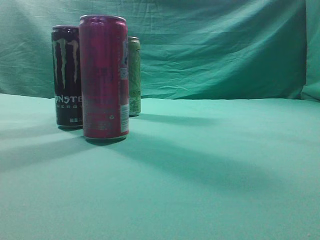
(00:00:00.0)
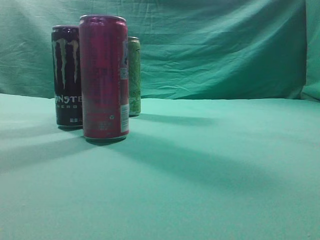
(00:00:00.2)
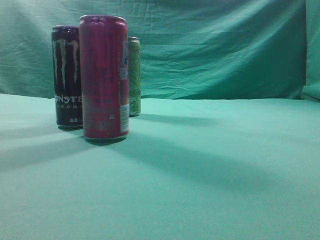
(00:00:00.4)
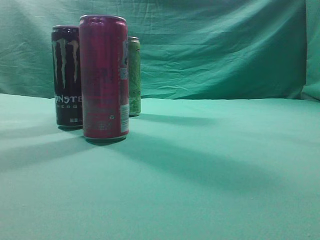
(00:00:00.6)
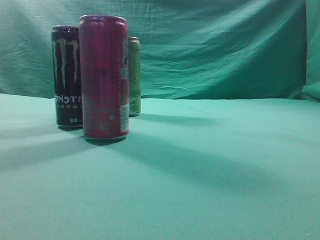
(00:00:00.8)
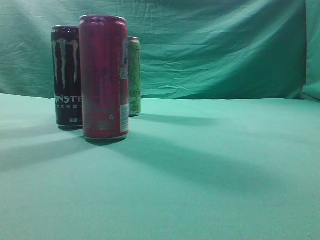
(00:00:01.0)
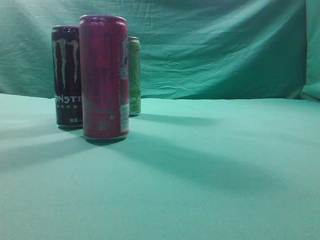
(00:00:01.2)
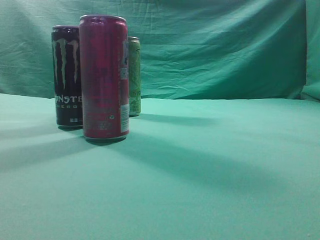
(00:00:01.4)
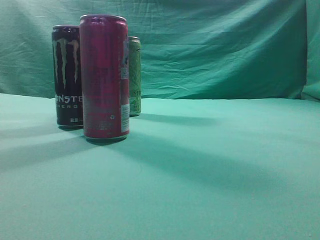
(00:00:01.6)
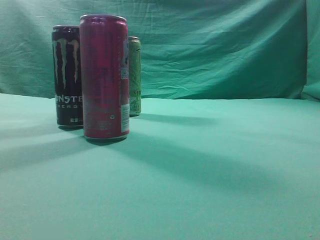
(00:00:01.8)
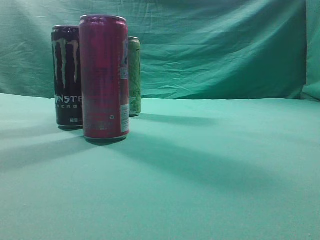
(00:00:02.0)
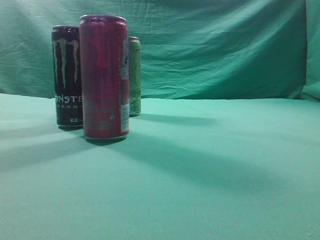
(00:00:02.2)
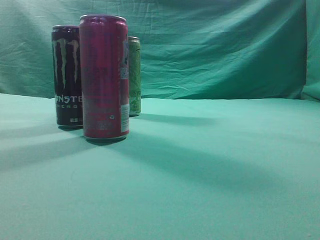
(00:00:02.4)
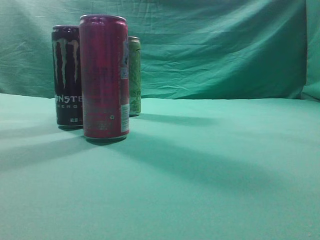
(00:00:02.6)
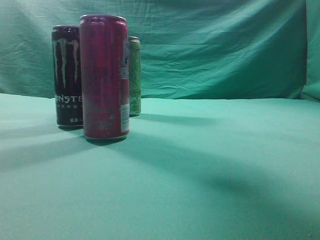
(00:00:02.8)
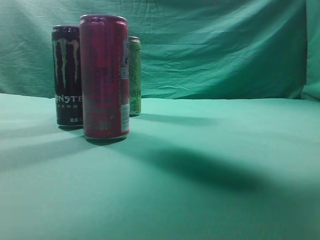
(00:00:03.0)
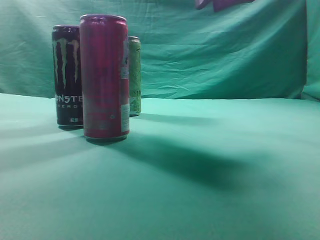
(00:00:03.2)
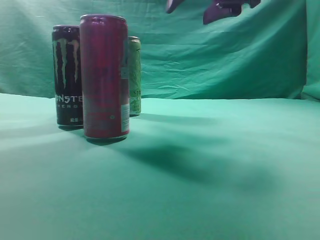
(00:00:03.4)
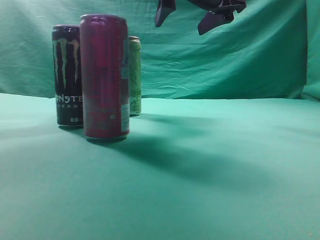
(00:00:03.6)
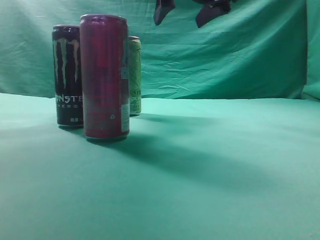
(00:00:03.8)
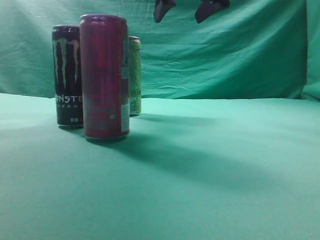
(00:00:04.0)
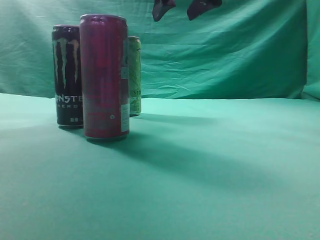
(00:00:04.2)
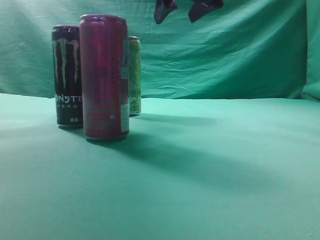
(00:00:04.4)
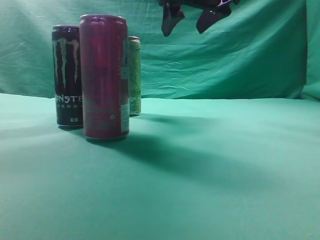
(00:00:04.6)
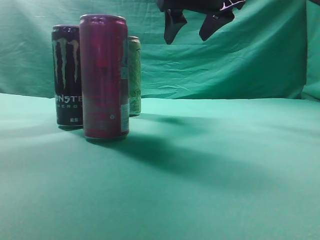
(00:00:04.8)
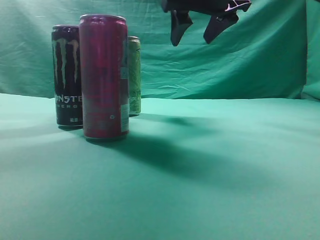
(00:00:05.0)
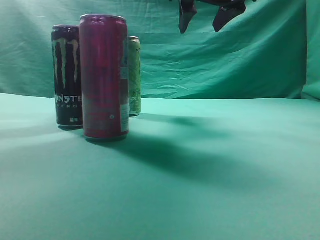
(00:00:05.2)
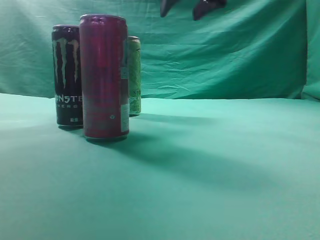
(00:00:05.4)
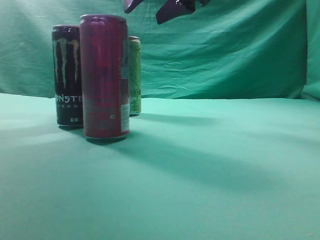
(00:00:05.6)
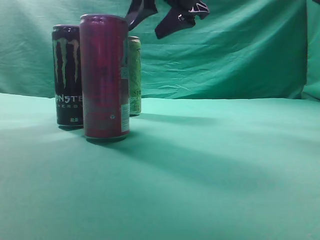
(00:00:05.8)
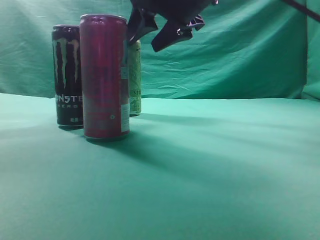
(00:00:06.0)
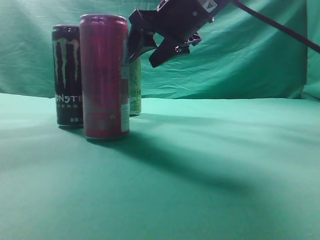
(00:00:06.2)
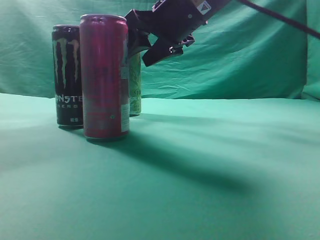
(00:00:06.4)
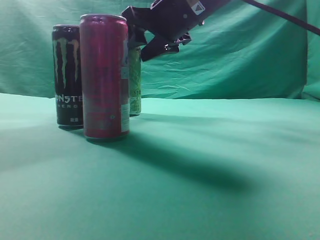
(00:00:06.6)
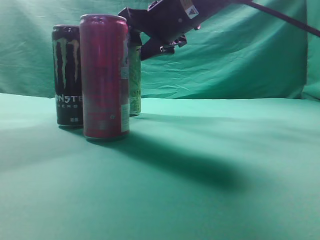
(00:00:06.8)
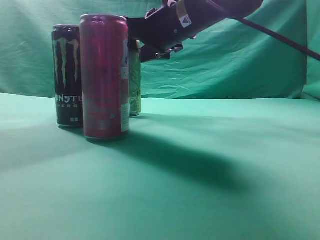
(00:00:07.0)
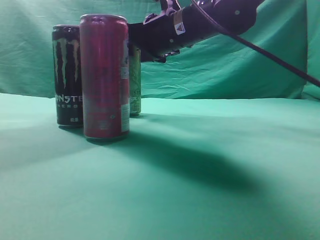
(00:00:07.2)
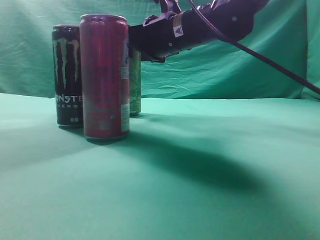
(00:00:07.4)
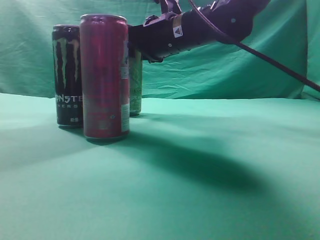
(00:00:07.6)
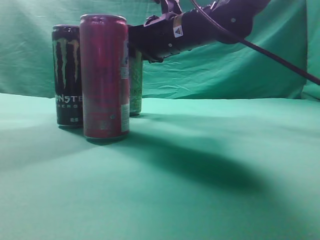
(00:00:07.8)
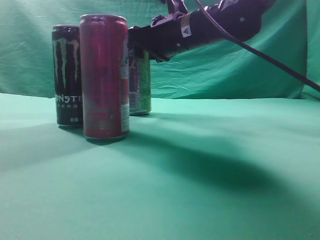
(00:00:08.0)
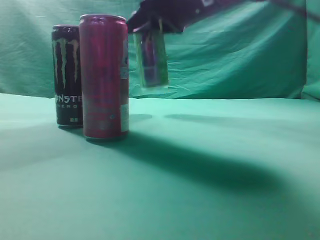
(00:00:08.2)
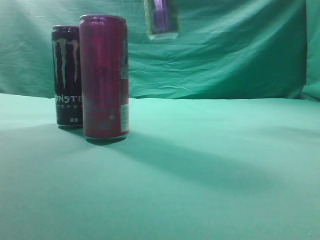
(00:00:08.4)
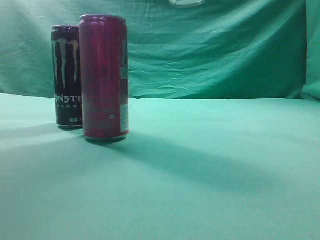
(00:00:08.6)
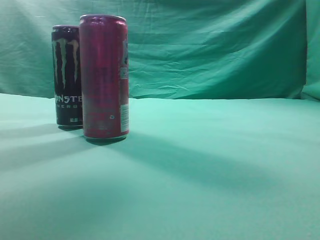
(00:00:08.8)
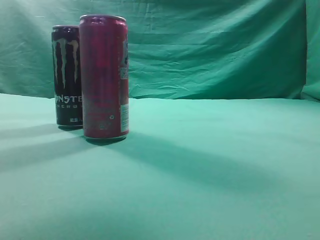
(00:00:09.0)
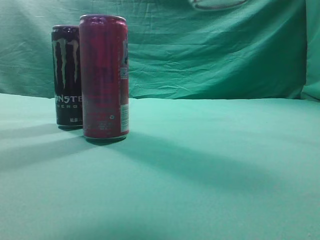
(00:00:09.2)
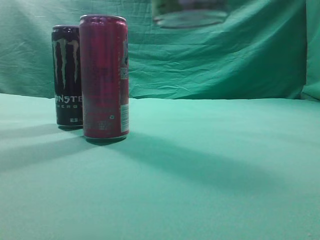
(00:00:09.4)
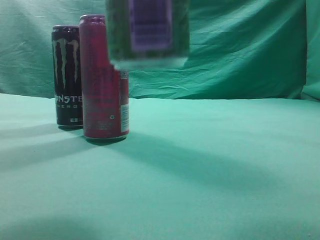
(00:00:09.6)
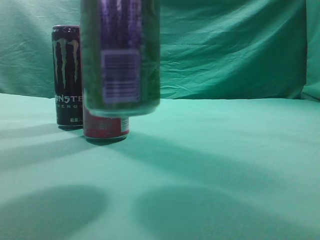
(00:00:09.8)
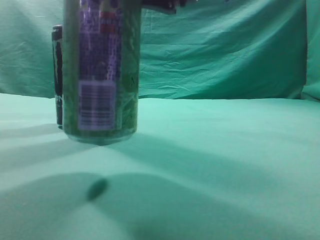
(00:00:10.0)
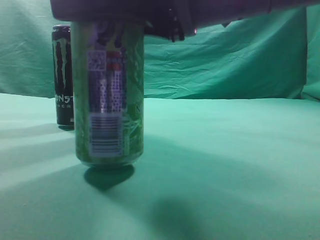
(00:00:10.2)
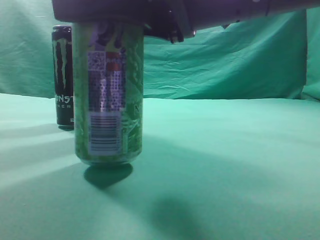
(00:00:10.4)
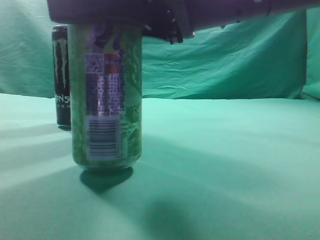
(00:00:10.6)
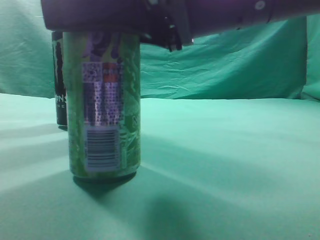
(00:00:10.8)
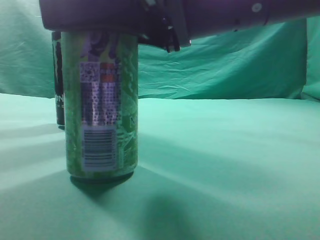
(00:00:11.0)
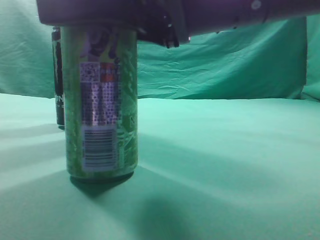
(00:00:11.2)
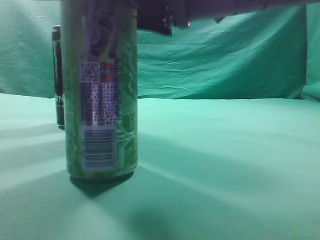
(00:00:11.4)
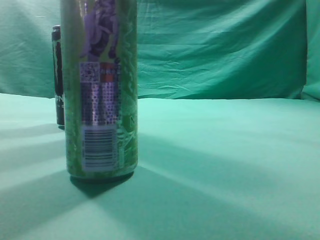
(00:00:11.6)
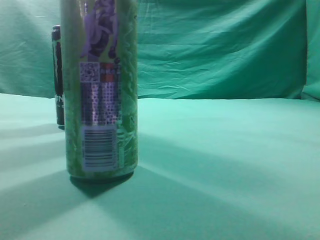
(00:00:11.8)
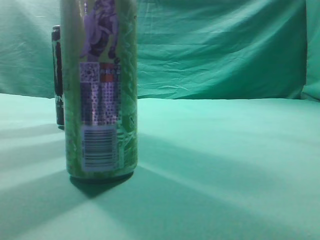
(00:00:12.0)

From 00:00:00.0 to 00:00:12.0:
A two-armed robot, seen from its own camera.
Task of the whole recording: move one drink among three beverages.
Step, from 00:00:00.0 to 00:00:08.2: Grasp the beverage bottle placed at the back of the desk.
From 00:00:01.6 to 00:00:03.0: The right gripper goes some 25 cm forward and to the left.
From 00:00:03.0 to 00:00:04.4: The right gripper goes approximately 15 cm forward and to the left, and opens its fingers.
From 00:00:04.4 to 00:00:06.0: The right gripper ends up approximately 5 cm from where it was.
From 00:00:06.0 to 00:00:07.6: The right gripper heads downward, covering about 5 cm.
From 00:00:07.6 to 00:00:09.0: The right gripper is displaced backward, upward and to the right by some 30 cm.
From 00:00:09.0 to 00:00:10.4: The right gripper moves downward and to the left, about 20 cm.
From 00:00:10.4 to 00:00:12.0: The right gripper is displaced upward and to the right by about 15 cm, and closes up.
